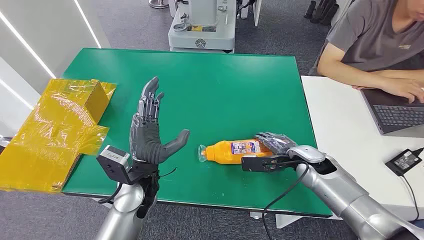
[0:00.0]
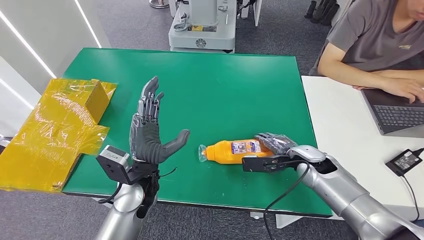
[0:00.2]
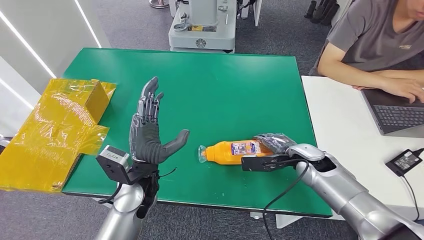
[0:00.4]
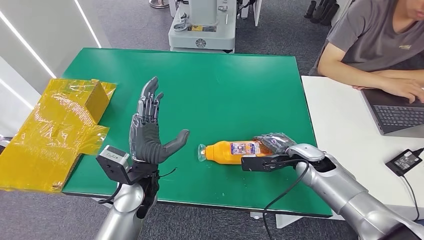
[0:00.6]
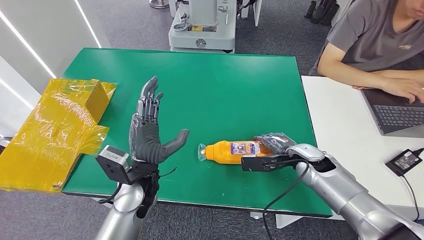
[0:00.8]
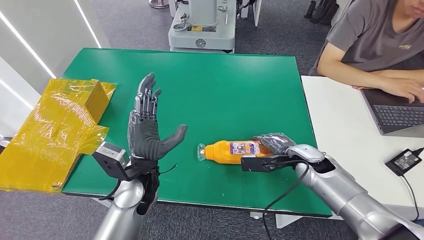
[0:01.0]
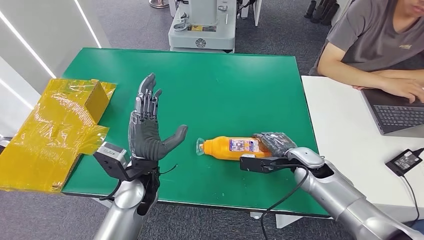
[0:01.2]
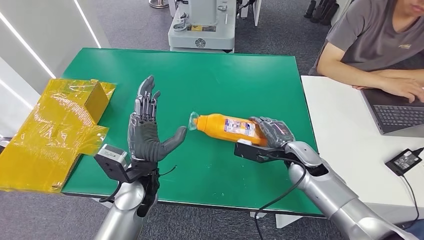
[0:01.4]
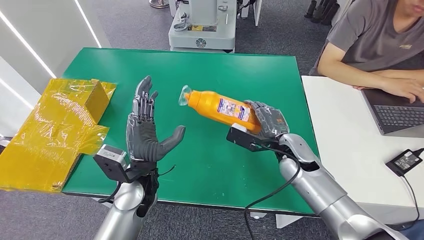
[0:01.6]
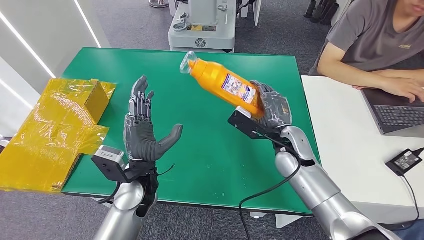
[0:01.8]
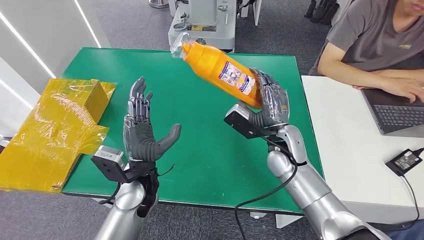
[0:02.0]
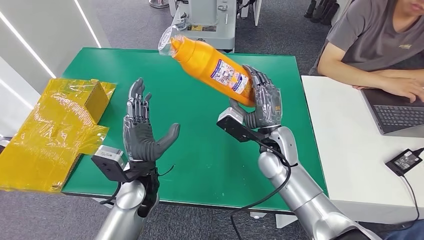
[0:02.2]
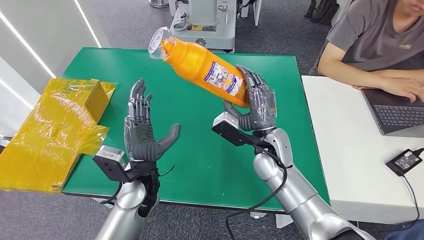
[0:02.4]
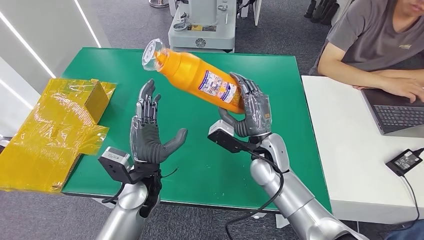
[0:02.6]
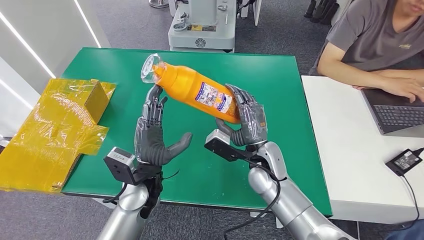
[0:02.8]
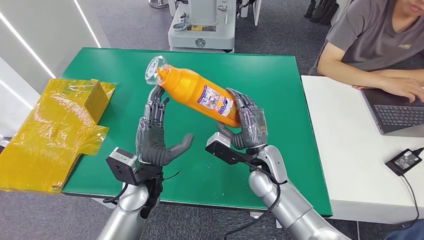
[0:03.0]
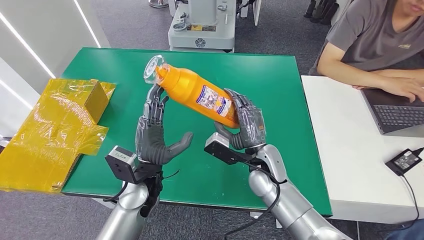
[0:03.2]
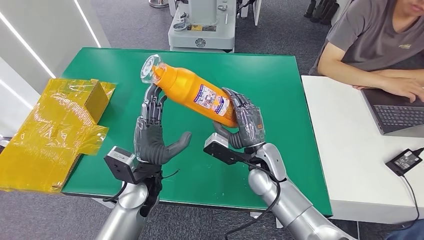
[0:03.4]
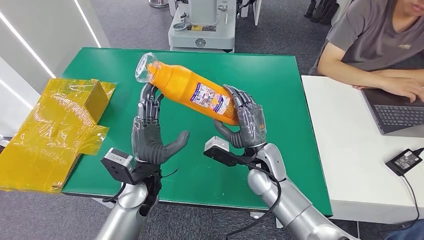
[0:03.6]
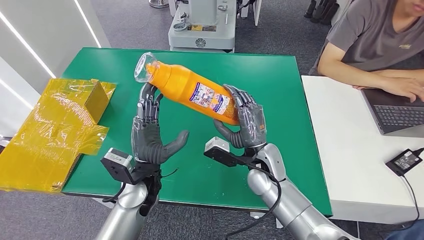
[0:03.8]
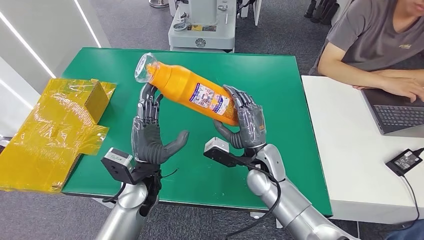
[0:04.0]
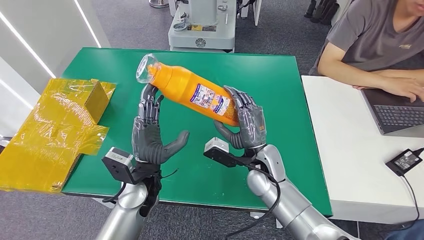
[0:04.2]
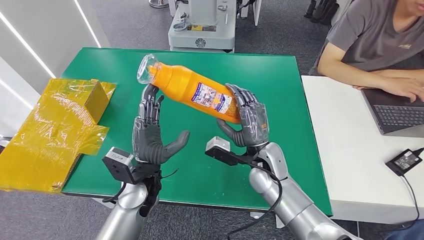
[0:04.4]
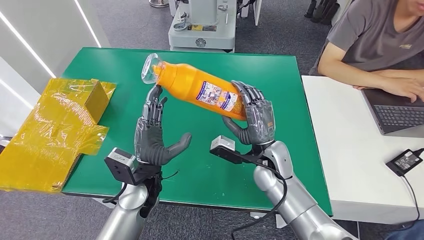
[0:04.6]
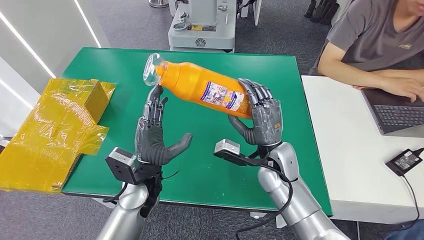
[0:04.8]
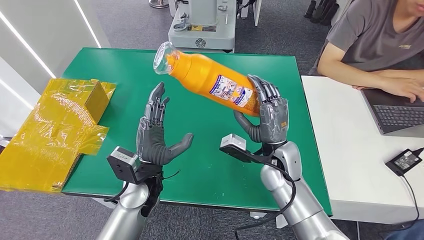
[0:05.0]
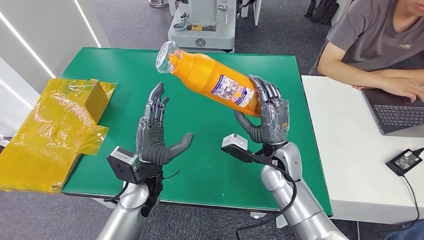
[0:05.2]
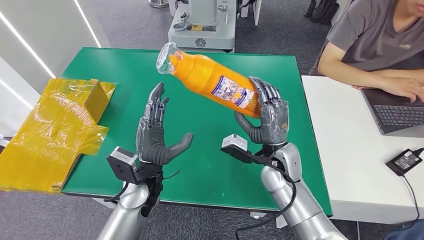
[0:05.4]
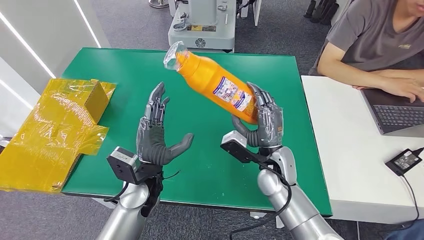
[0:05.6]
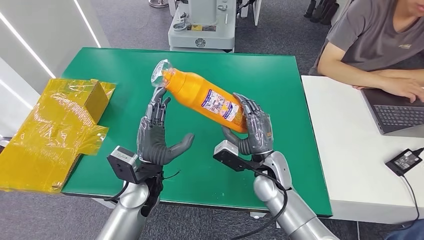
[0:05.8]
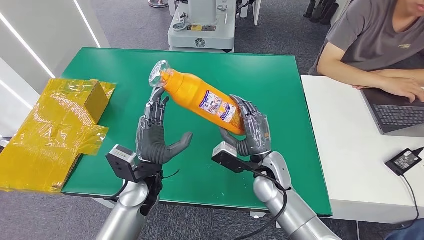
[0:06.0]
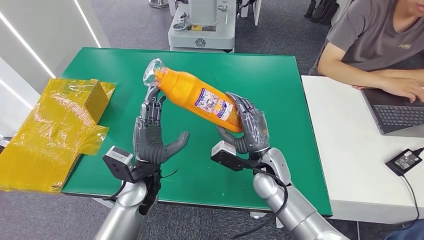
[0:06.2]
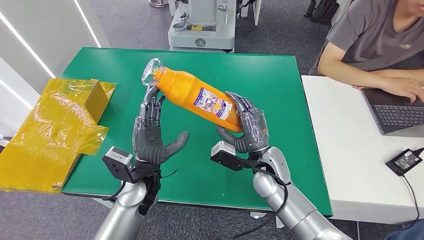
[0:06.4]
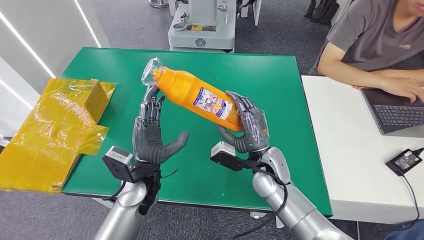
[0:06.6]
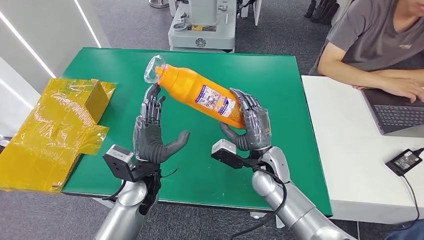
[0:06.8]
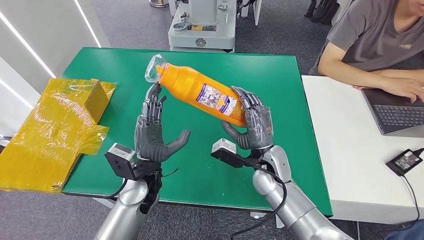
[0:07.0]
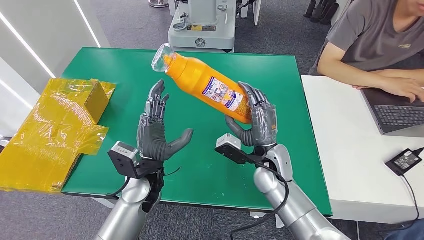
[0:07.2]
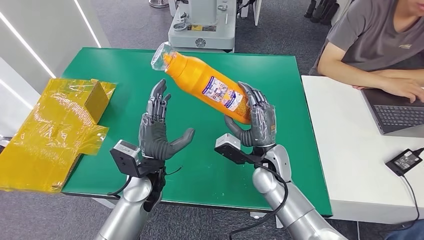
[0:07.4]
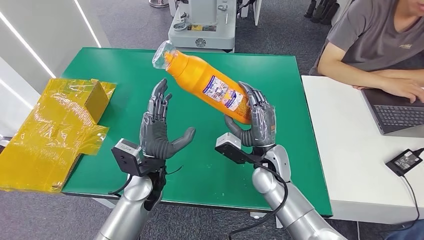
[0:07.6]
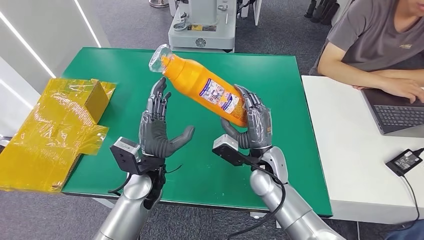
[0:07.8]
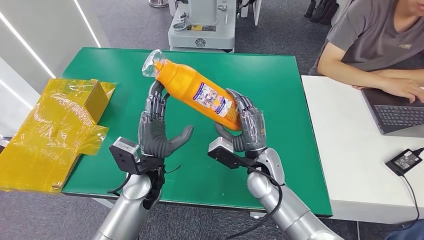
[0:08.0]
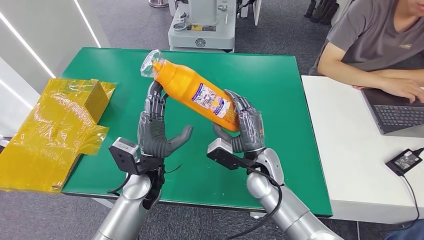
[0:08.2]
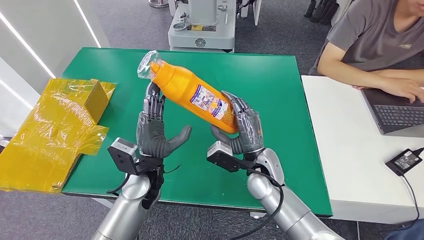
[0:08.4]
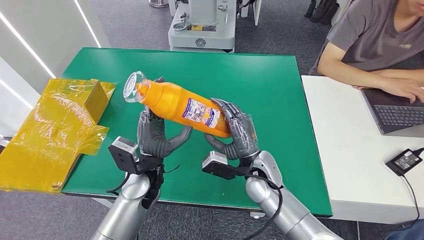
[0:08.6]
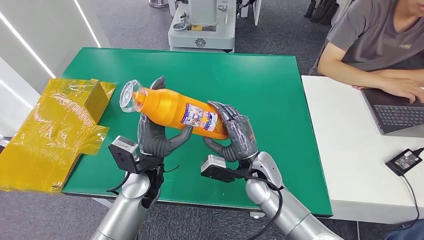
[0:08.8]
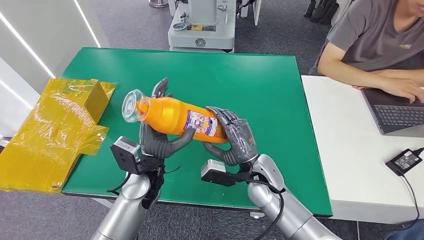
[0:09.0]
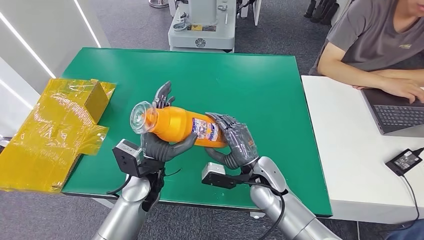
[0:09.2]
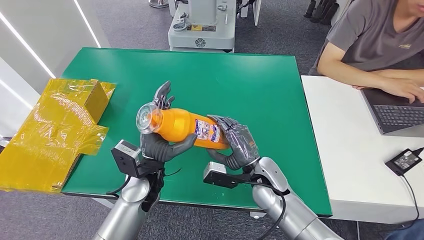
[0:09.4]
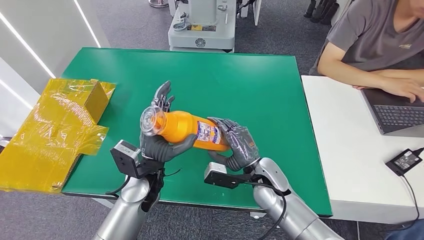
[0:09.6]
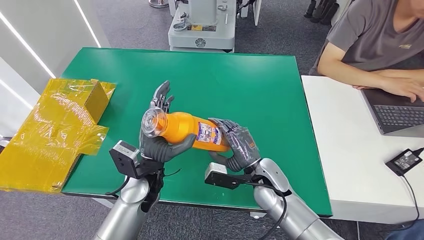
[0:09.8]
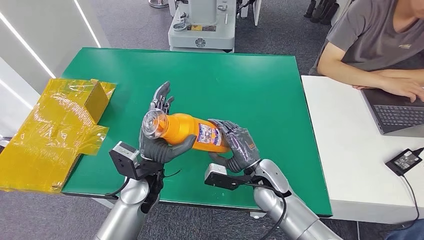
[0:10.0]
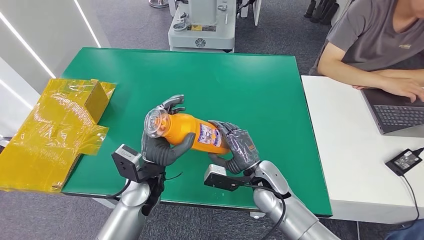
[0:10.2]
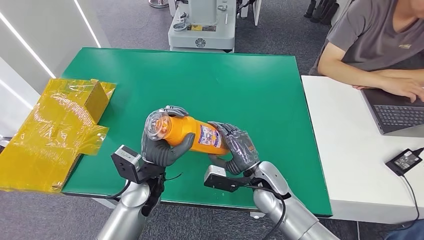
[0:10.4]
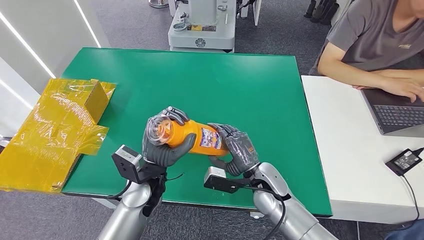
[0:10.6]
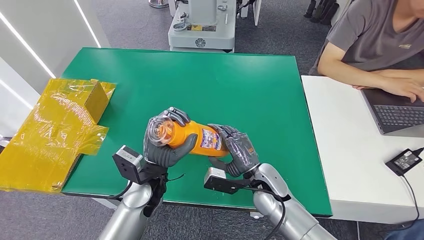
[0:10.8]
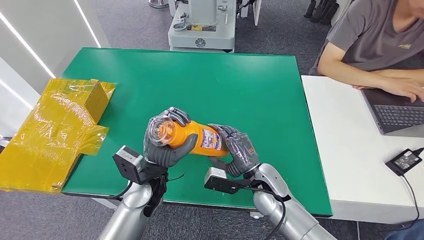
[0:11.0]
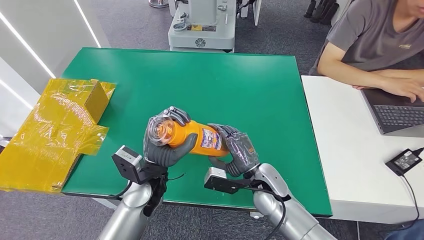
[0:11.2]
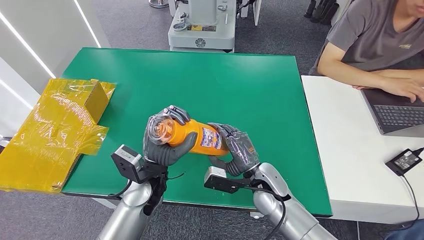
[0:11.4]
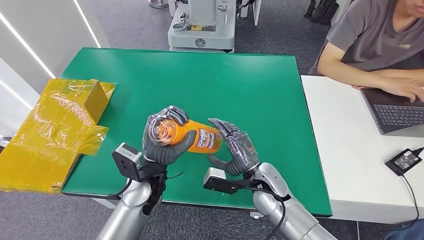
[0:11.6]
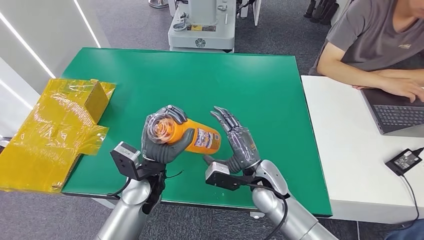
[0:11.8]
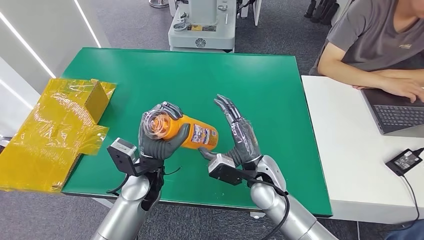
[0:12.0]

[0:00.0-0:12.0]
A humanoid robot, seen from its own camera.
Step, 0:00.0 to 0:01.6: Pick up the bottle from the table.
0:01.6 to 0:03.0: The right hand moves to the left, some 10 cm.
0:03.0 to 0:07.6: The hands stay close to where they were, moving slightly.
0:09.0 to 0:12.0: The hands move only a little.

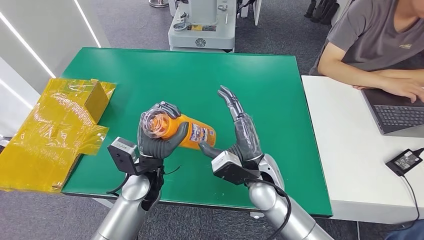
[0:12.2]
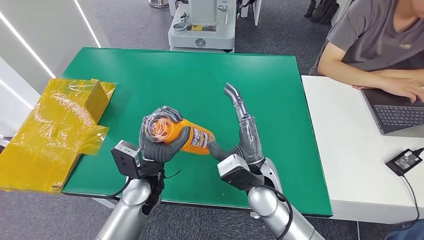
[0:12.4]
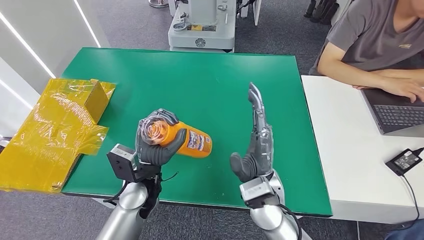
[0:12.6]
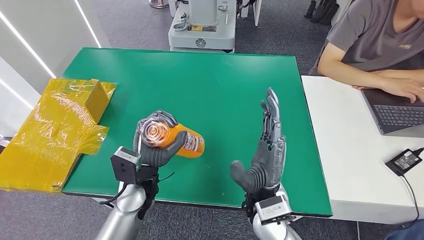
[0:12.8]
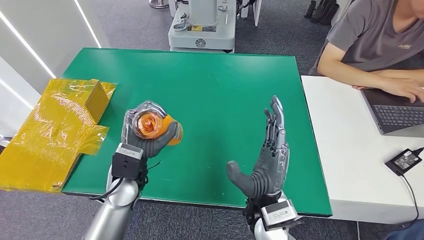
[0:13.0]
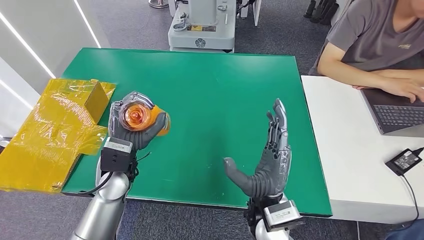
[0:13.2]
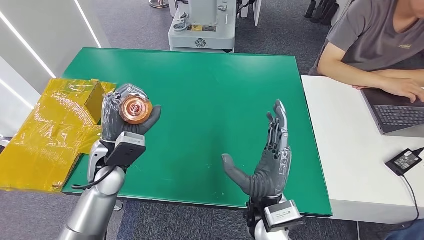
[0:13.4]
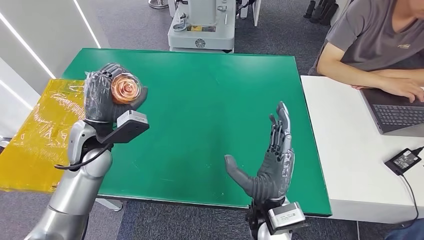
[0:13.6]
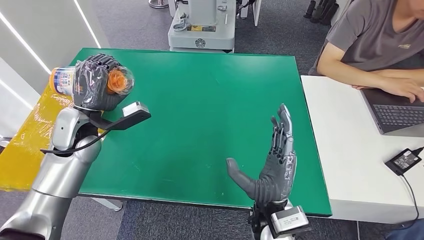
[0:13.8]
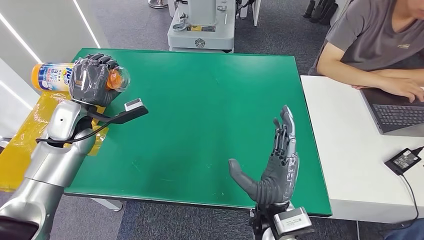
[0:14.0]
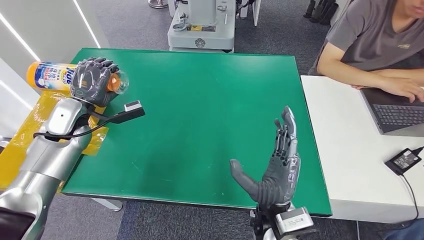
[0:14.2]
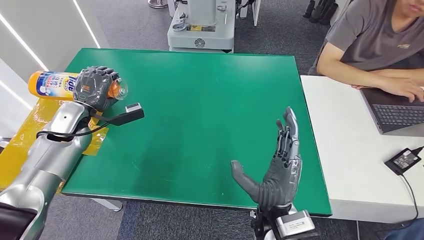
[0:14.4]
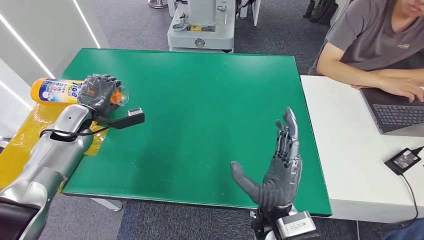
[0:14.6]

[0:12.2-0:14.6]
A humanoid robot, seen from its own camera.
Step, 0:12.2 to 0:14.6: Turn the bottle to the front side.
0:12.2 to 0:13.4: The left hand goes some 10 cm to the left, while the right hand is displaced backward by roughly 10 cm.
0:13.4 to 0:14.6: The left hand goes approximately 20 cm to the left and forward.
